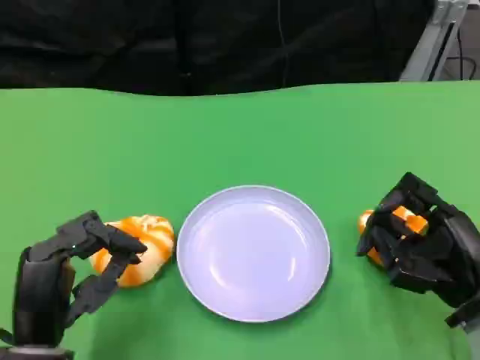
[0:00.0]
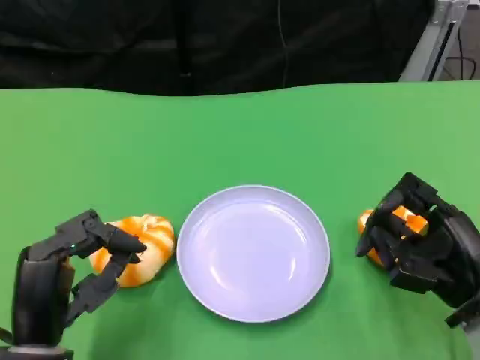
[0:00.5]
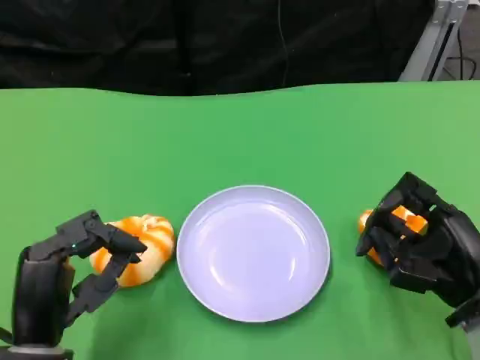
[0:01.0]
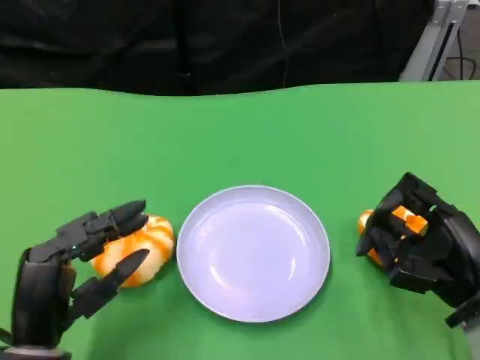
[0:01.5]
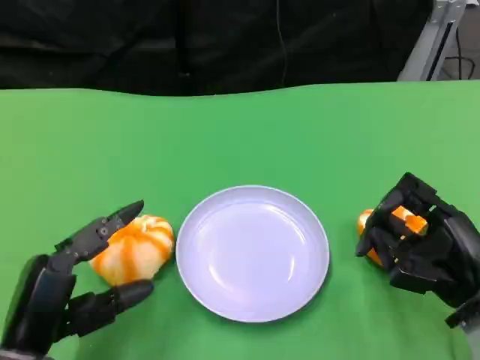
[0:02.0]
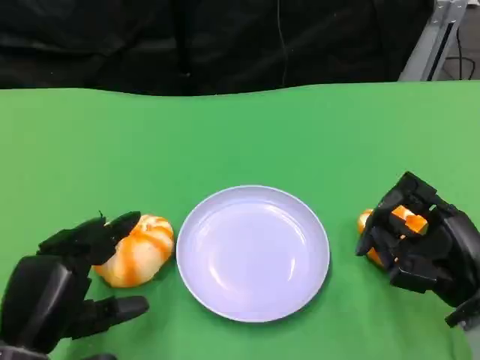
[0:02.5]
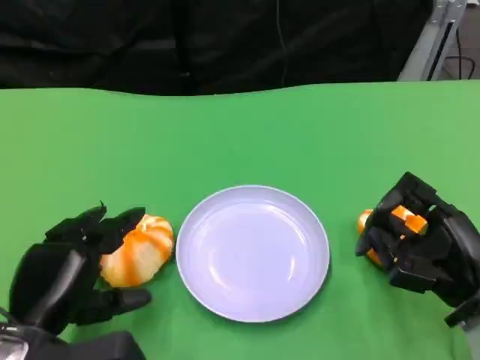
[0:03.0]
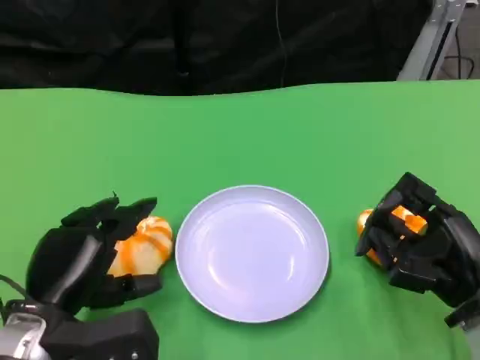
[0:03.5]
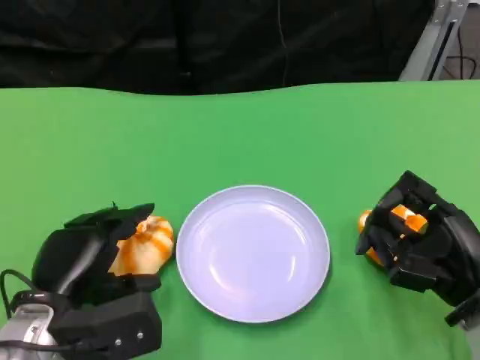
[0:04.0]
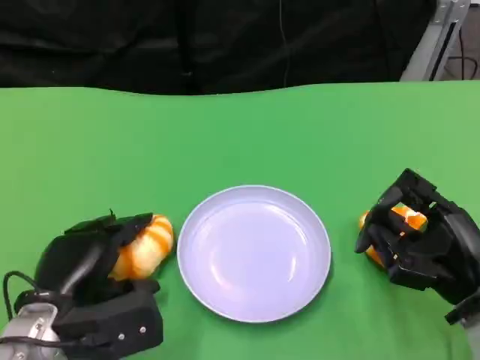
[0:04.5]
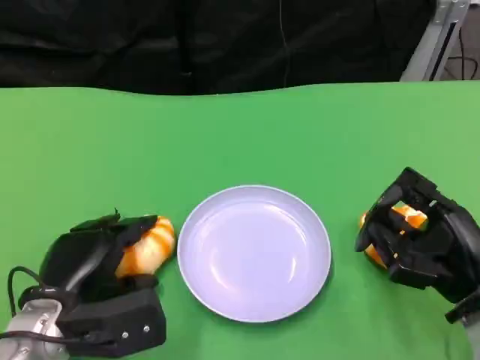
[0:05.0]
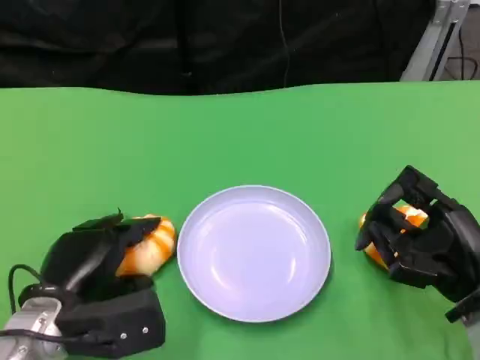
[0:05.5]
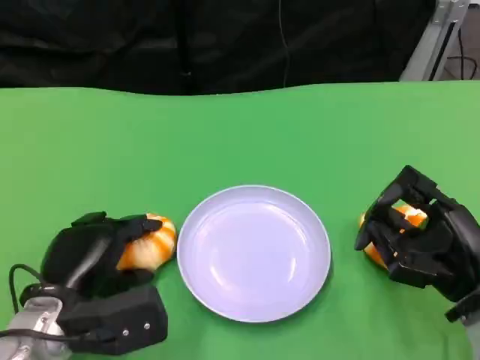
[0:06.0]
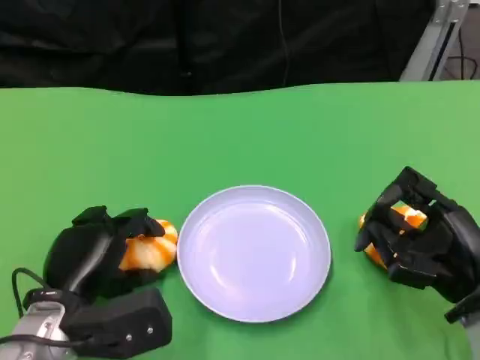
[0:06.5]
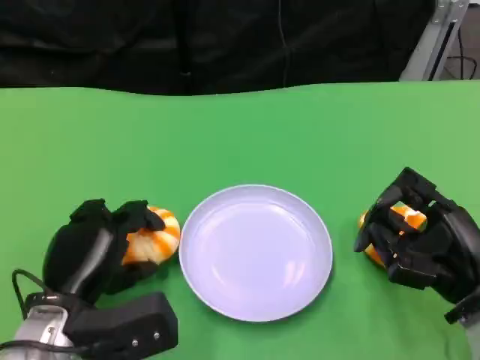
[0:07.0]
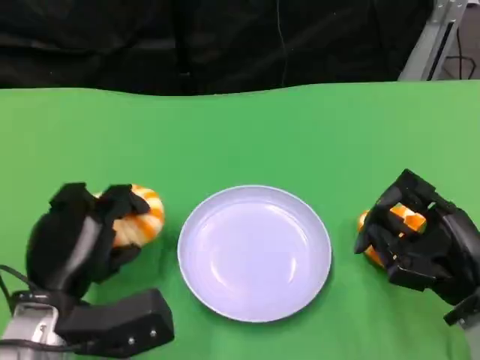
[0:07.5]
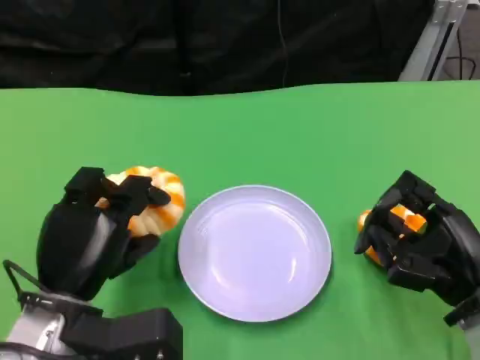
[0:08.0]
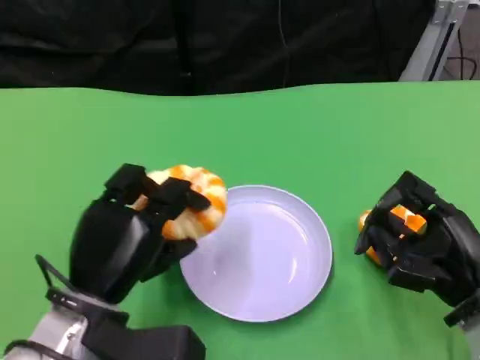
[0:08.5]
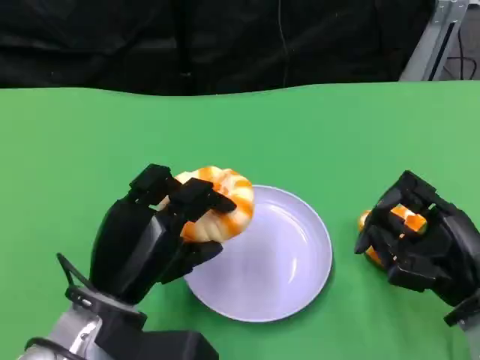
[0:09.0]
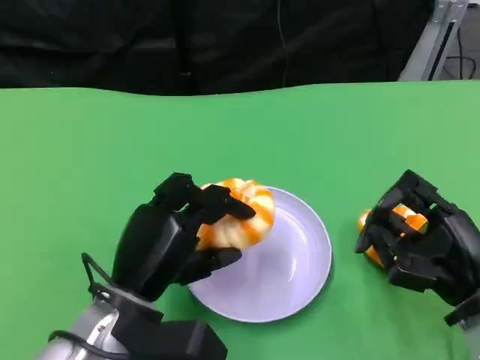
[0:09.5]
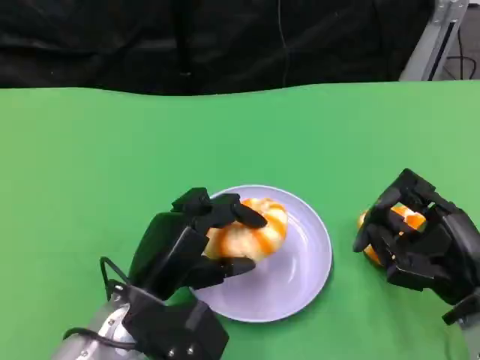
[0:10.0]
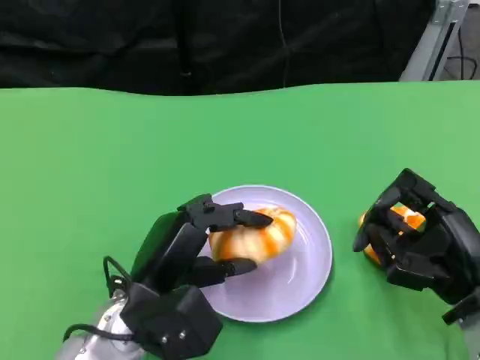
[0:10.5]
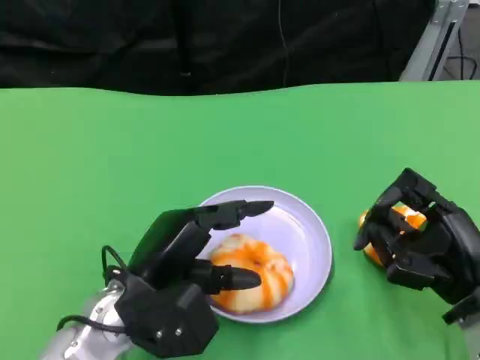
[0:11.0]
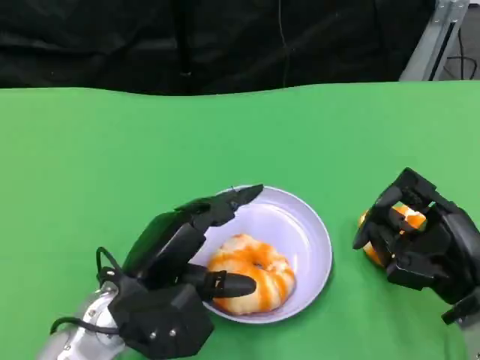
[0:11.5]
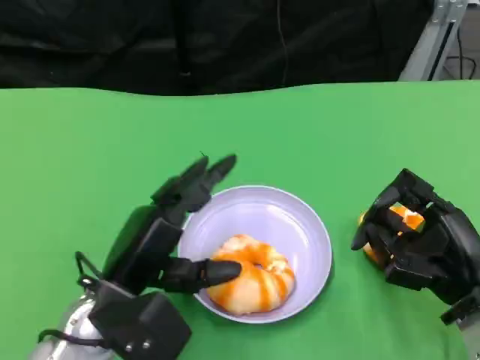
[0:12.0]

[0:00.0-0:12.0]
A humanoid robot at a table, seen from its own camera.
Task of the whole recording: Grasp the bread from the table and place it into the plate.
0:02.0 to 0:04.0: The left hand heads forward, covering about 5 cm.
0:04.0 to 0:06.0: There are only small adjustments of the hands.
0:08.0 to 0:10.0: The left hand goes approximately 5 cm to the right.
0:10.0 to 0:12.0: The hands stay close to where they were, moving slightly.

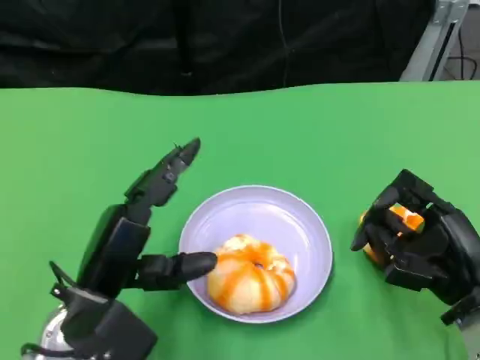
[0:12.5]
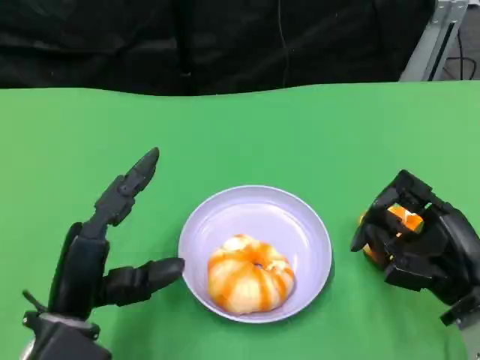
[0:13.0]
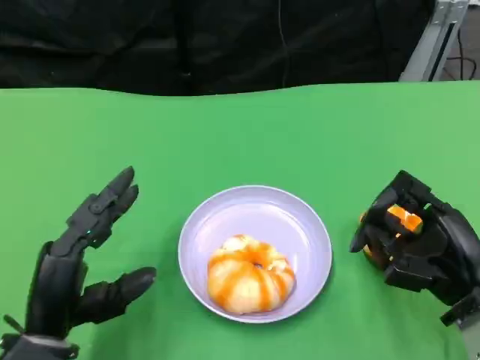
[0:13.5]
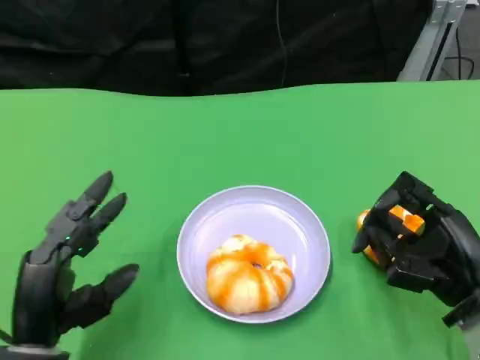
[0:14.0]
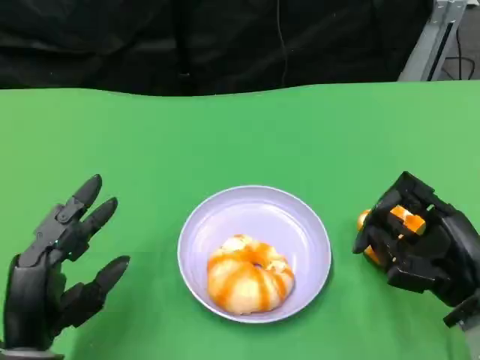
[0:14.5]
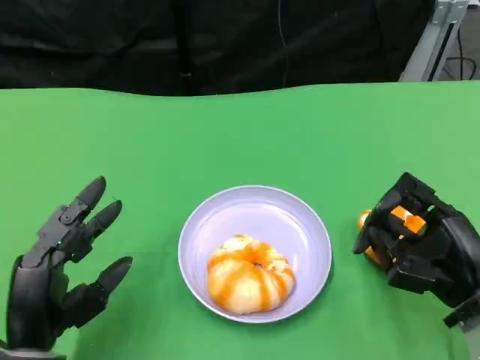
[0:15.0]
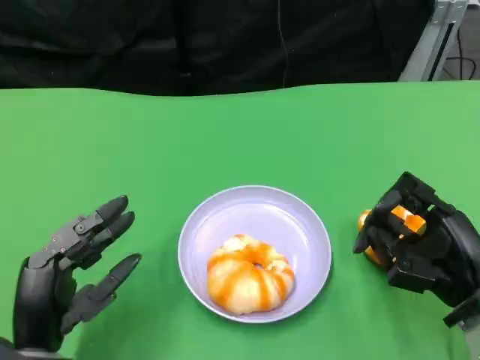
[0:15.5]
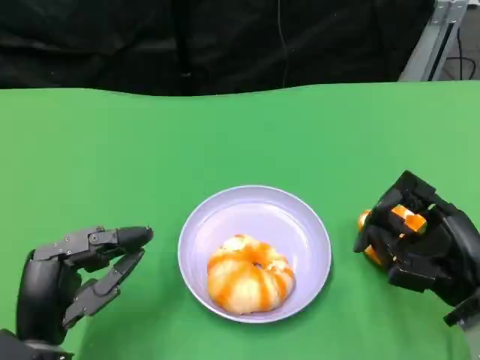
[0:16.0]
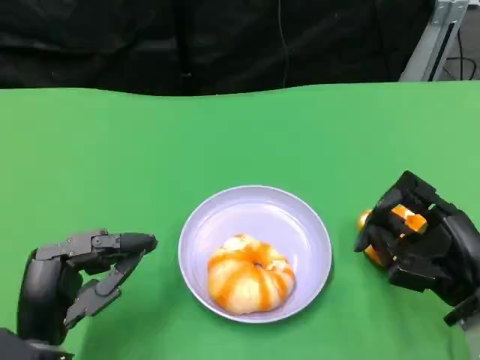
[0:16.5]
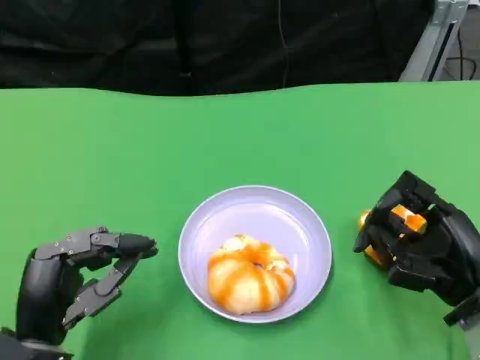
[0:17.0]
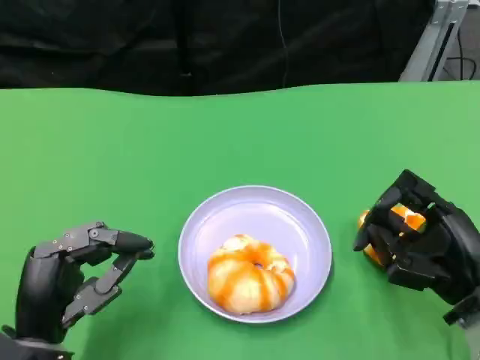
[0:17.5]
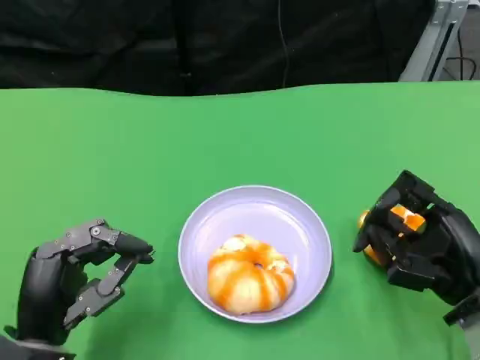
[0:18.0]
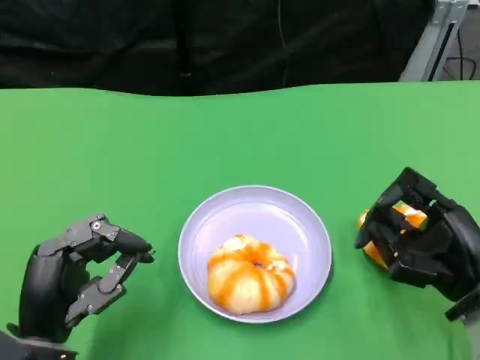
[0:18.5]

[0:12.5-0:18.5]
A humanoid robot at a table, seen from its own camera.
Task of the whole recording: Grasp the bread from the table and place it into the plate.
0:12.5 to 0:14.5: The left hand moves roughly 5 cm.
0:14.5 to 0:16.5: The hands move only a little.
0:16.5 to 0:18.5: Both hands stay put.

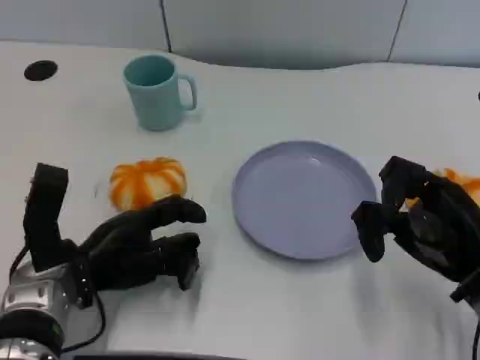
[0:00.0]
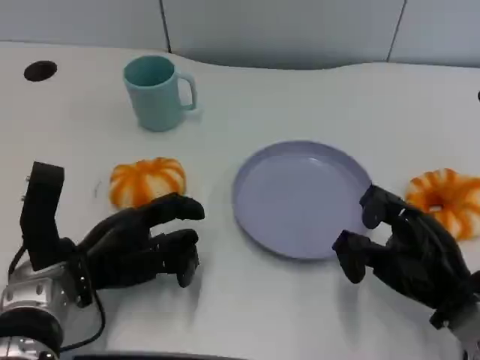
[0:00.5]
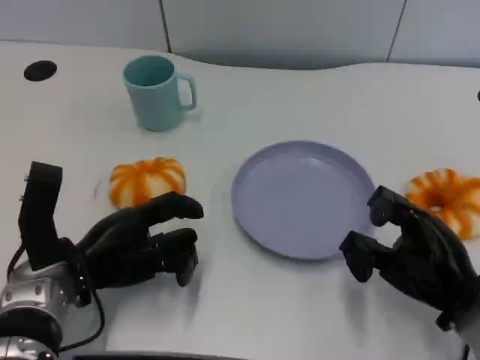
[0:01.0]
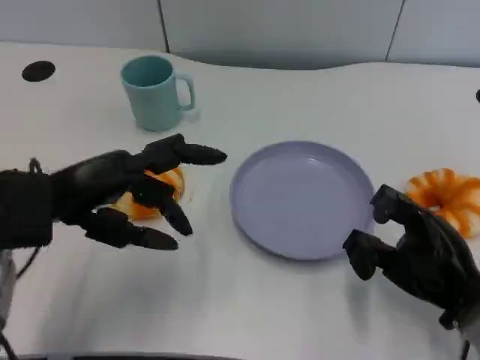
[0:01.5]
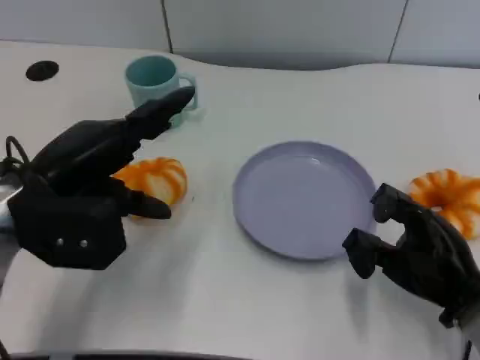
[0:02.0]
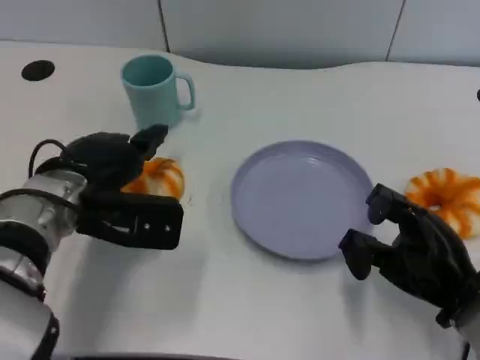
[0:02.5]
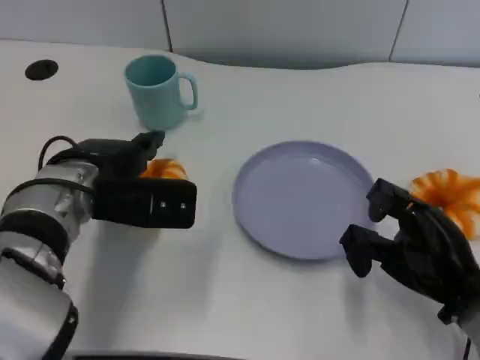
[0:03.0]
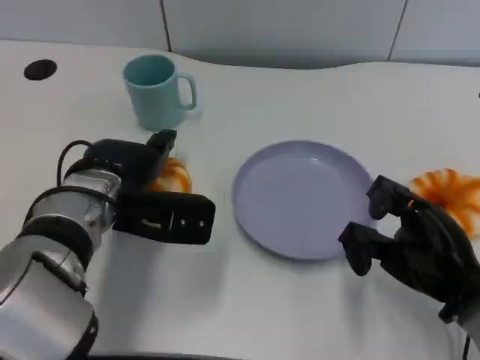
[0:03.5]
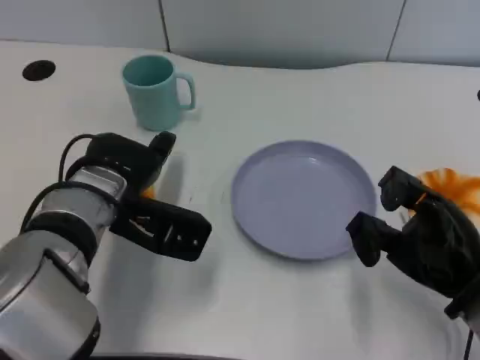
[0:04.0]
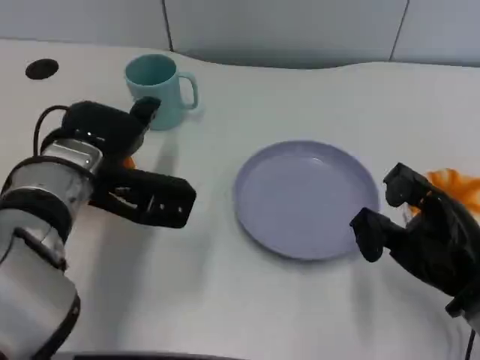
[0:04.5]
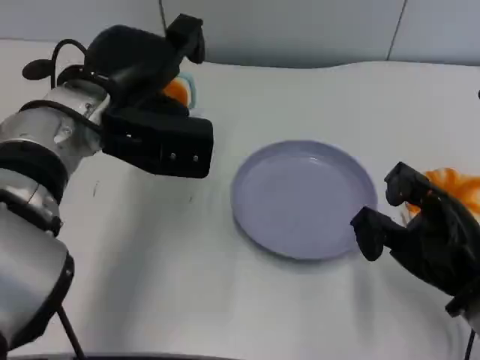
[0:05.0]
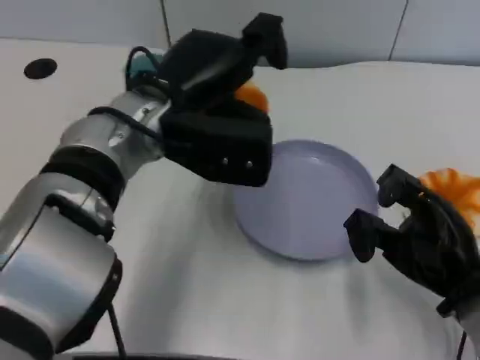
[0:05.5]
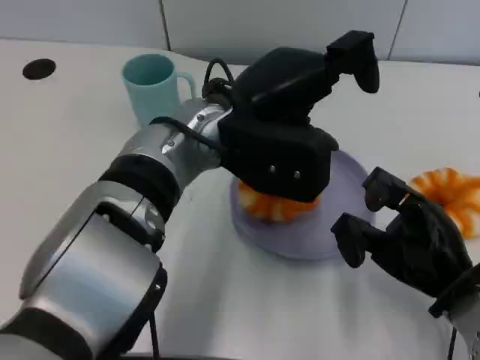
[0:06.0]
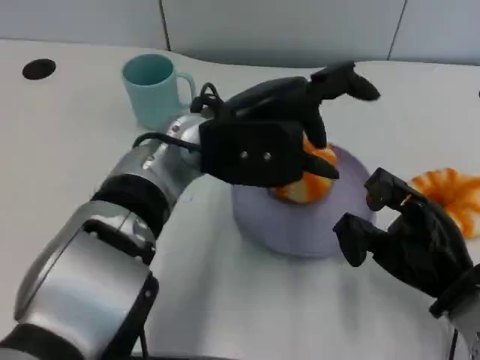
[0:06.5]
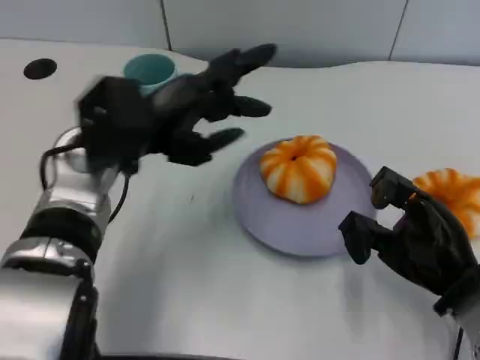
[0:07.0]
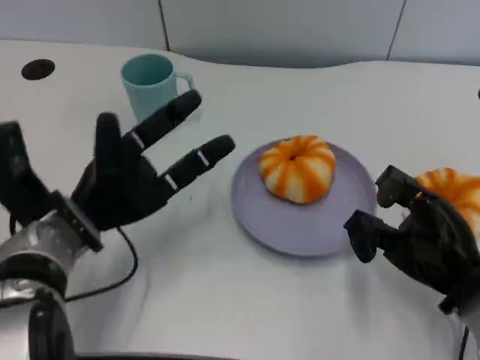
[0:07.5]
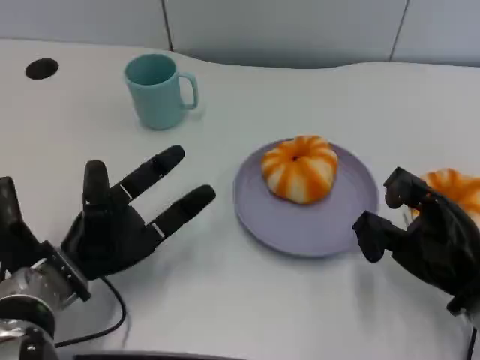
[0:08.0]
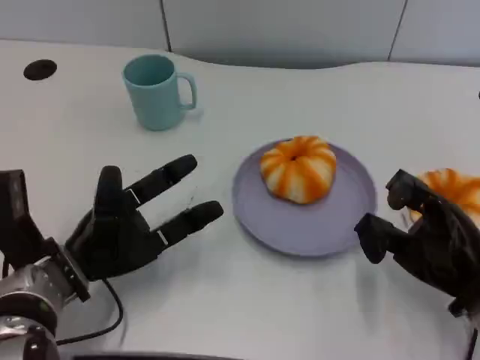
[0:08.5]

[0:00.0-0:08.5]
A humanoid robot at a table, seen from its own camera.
Task of the whole recording: Grasp the bread from the table and place it into the plate.
0:00.0 to 0:02.0: The left hand travels upward by approximately 10 cm.
0:02.0 to 0:04.0: The left hand moves to the right, roughly 5 cm.
0:04.0 to 0:06.5: The left hand goes approximately 10 cm to the right and upward.
0:06.5 to 0:08.5: The left hand goes approximately 20 cm to the left and downward.
